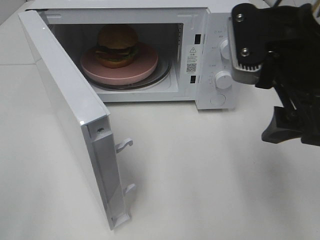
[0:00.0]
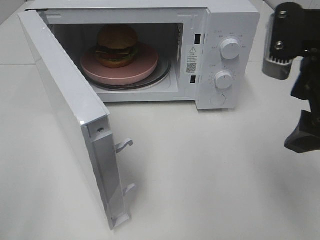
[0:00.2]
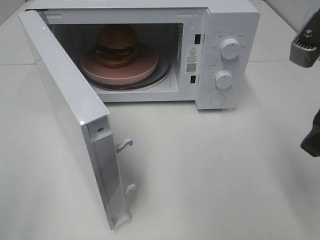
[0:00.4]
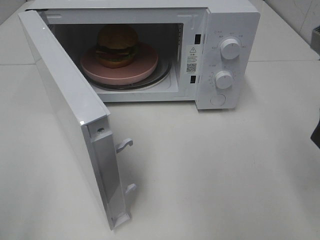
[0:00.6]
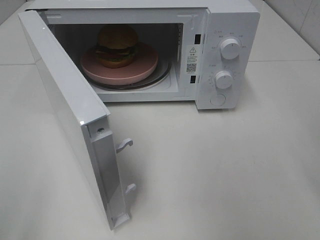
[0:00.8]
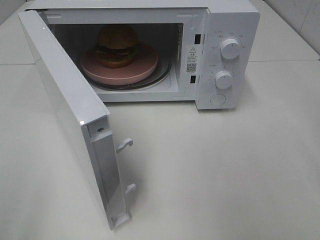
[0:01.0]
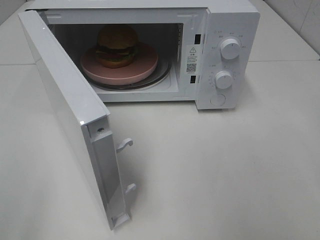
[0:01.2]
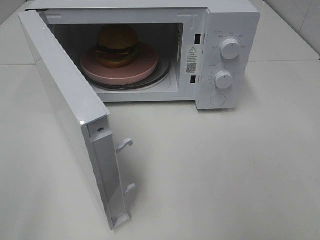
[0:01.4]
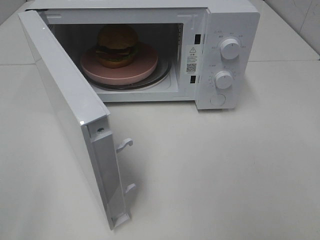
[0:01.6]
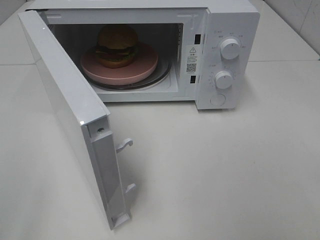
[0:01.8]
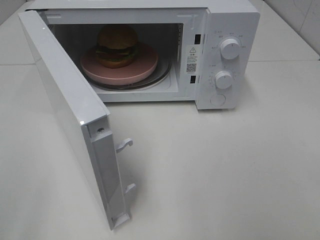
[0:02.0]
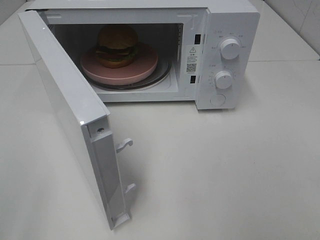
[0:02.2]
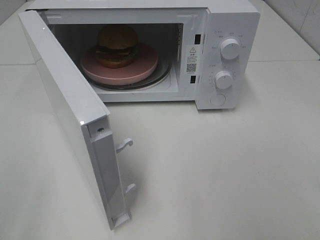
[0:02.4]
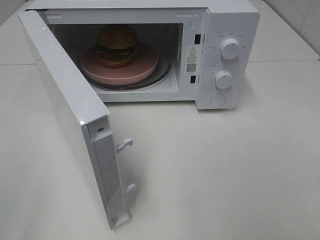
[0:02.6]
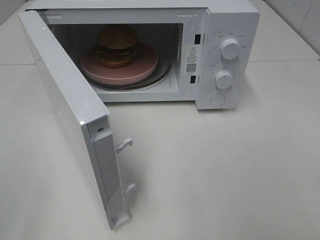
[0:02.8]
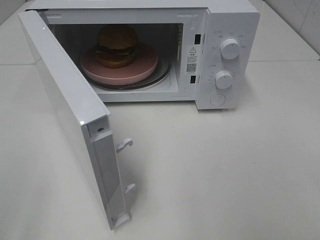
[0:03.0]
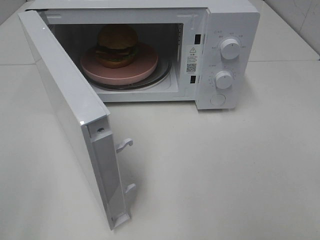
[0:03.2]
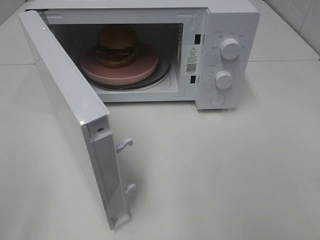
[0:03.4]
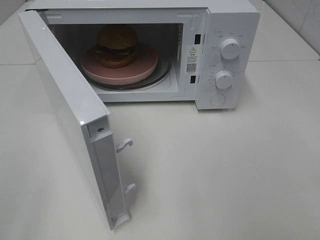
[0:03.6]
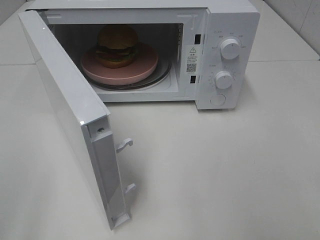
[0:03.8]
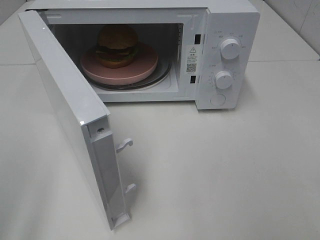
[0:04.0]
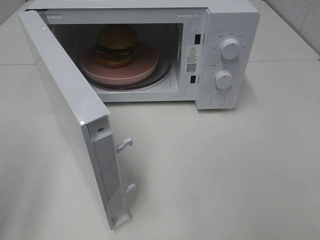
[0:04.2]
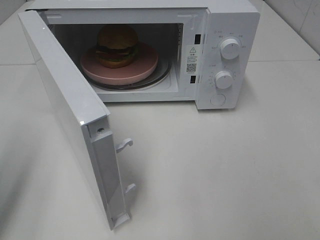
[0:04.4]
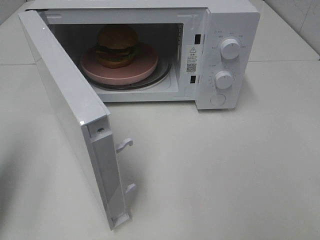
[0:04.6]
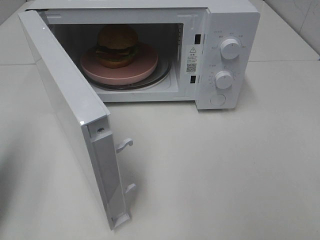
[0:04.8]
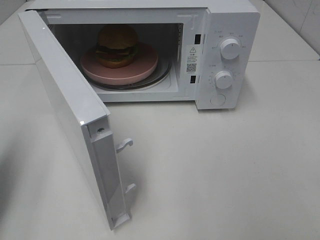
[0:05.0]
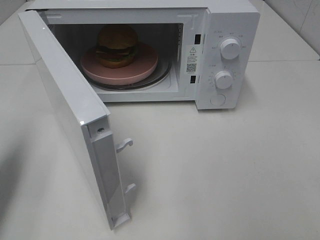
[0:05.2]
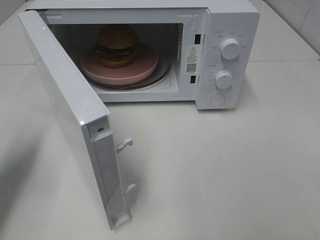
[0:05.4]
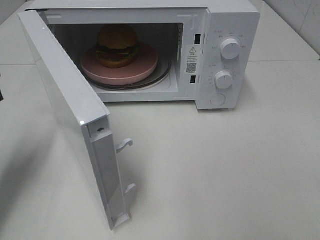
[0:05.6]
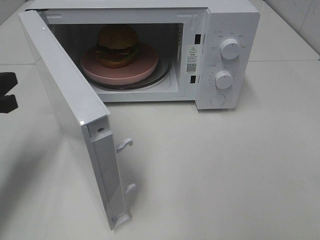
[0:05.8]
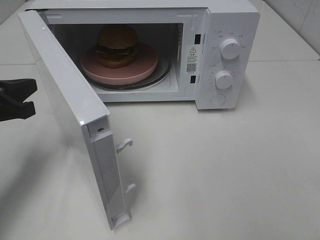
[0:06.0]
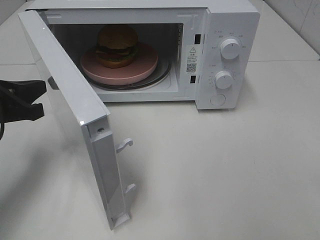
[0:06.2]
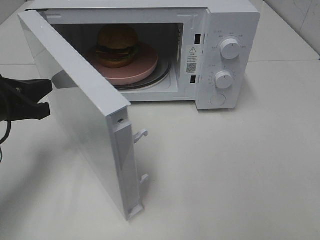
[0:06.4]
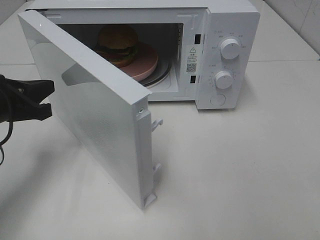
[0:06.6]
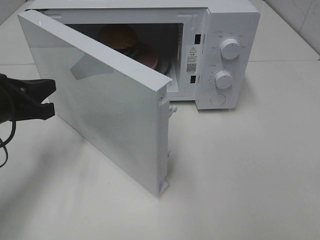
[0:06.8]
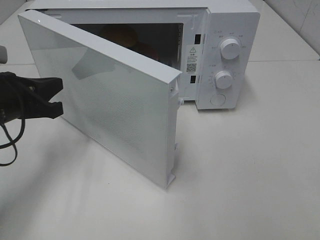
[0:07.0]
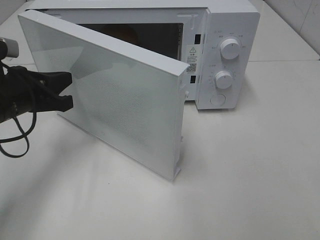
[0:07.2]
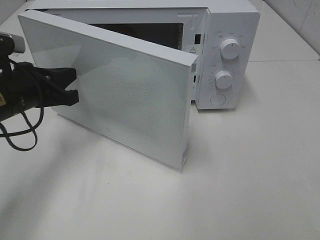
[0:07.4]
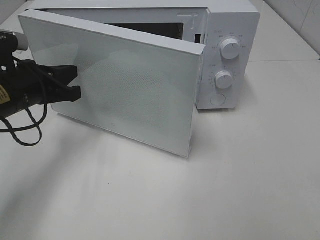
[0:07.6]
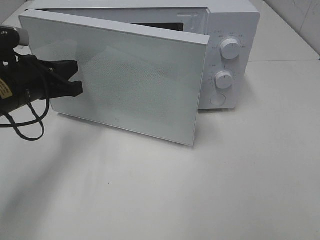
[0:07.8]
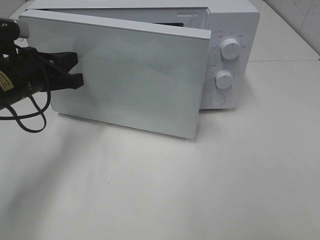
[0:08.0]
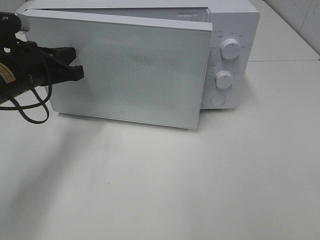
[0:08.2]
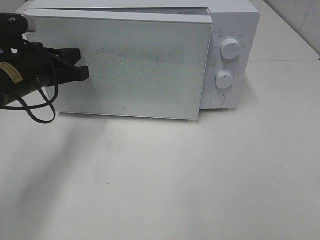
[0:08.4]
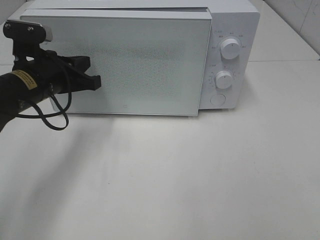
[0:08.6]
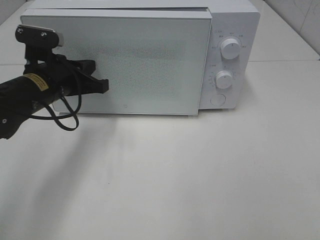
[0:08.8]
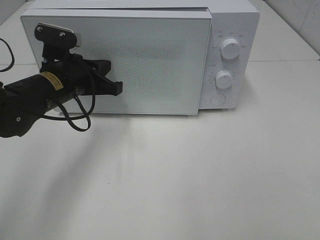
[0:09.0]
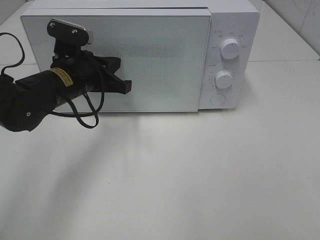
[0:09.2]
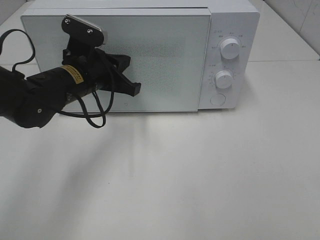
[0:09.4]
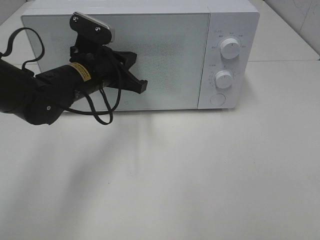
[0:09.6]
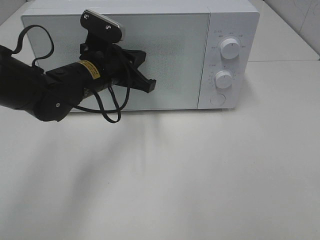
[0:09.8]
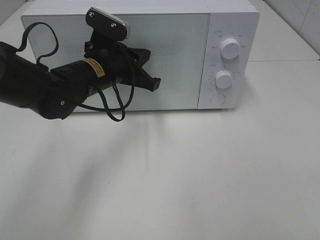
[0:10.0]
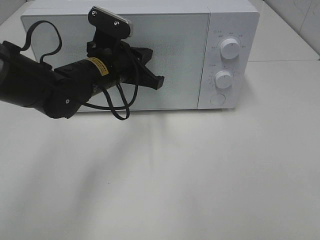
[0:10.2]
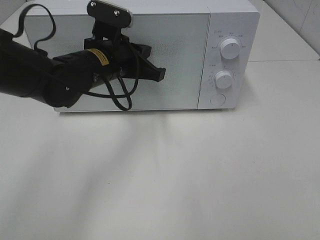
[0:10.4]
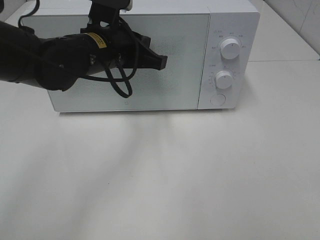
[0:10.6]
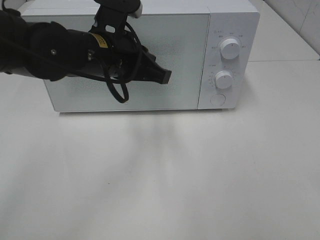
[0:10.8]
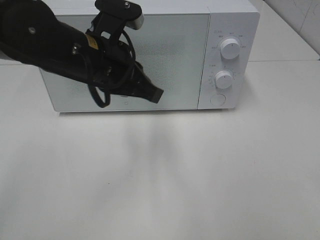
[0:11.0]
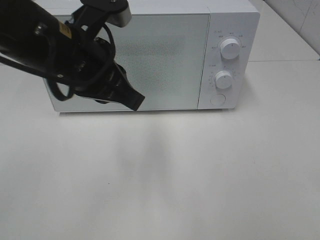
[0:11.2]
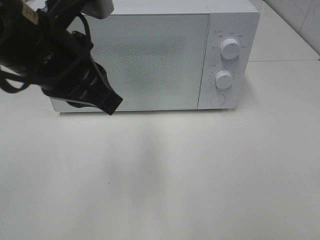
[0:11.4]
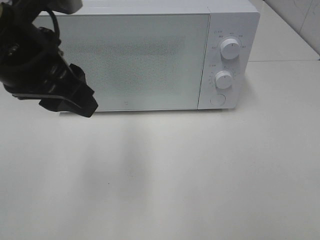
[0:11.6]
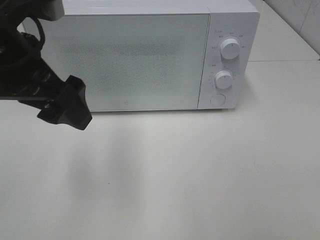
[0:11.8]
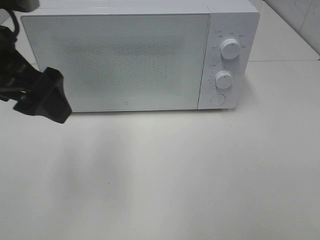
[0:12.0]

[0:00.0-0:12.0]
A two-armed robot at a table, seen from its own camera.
Task of the whole recording: Heat the burger.
Step, 0:00.0 to 0:09.6: Left hand: close the microwave door.
0:00.0 to 0:01.6: The right gripper is displaced to the right and backward by approximately 20 cm.
0:03.0 to 0:04.4: The left gripper shifts some 15 cm forward, and closes up.
0:04.4 to 0:06.0: The left gripper goes approximately 20 cm downward, forward and to the right, and closes.
0:06.0 to 0:07.6: The left gripper is displaced to the right by about 5 cm.
0:07.6 to 0:09.0: The left gripper heads to the right, covering about 5 cm.
0:09.0 to 0:10.4: The left gripper travels to the right by roughly 5 cm.
0:10.4 to 0:12.0: The left gripper travels backward, upward and to the left by some 20 cm, and opens up.

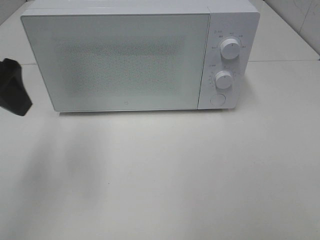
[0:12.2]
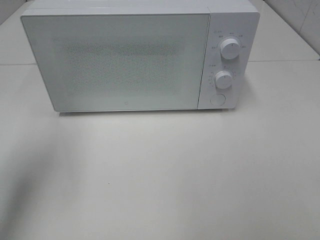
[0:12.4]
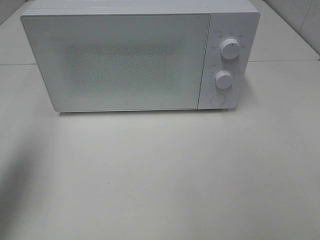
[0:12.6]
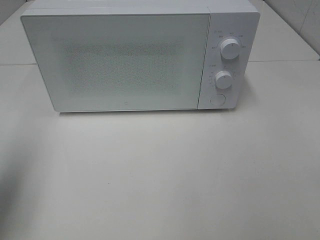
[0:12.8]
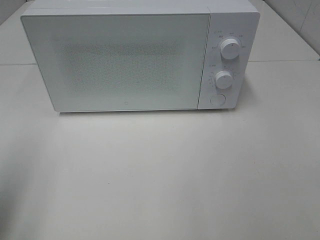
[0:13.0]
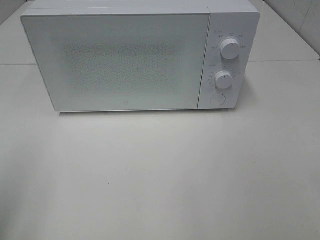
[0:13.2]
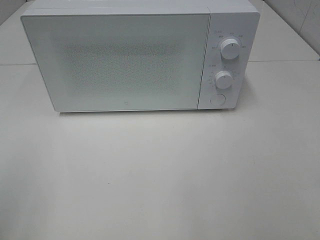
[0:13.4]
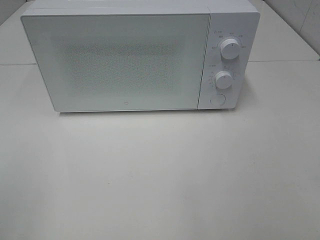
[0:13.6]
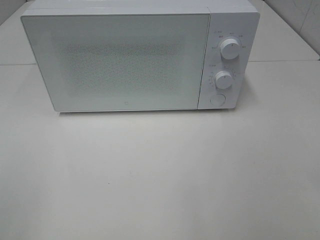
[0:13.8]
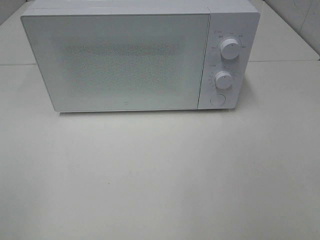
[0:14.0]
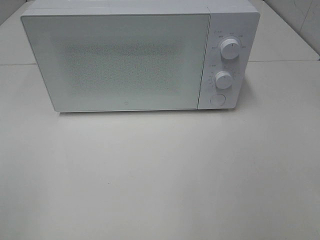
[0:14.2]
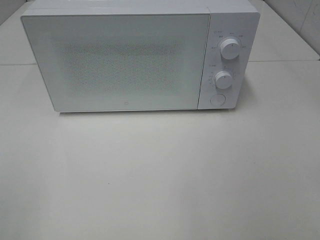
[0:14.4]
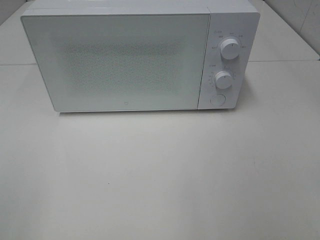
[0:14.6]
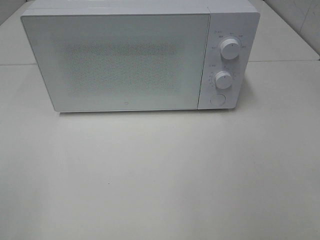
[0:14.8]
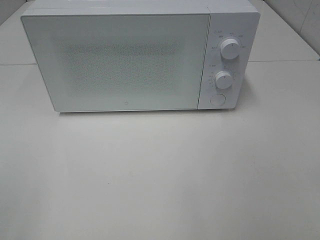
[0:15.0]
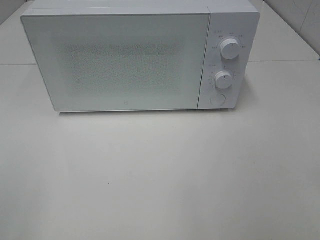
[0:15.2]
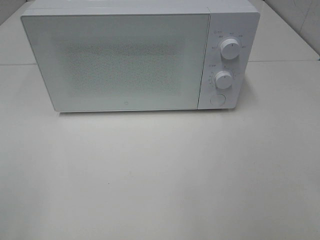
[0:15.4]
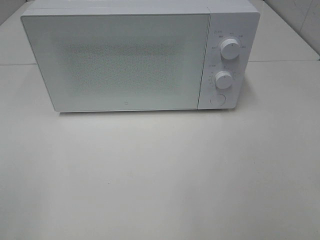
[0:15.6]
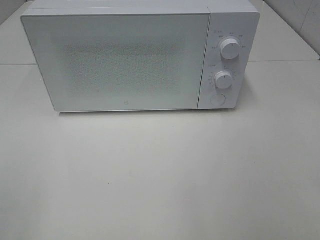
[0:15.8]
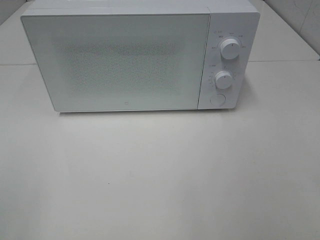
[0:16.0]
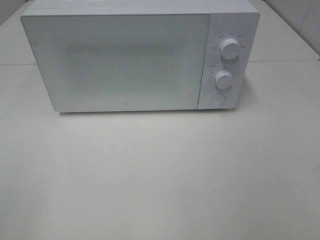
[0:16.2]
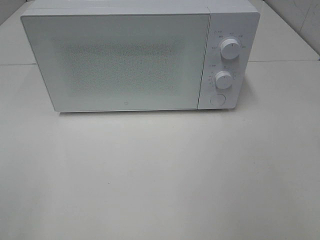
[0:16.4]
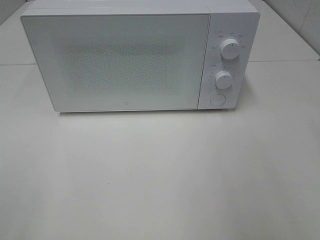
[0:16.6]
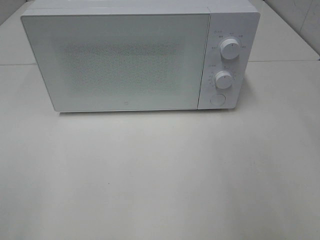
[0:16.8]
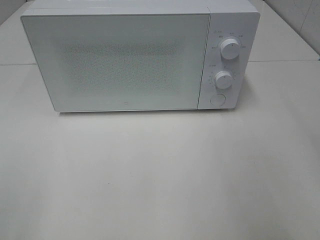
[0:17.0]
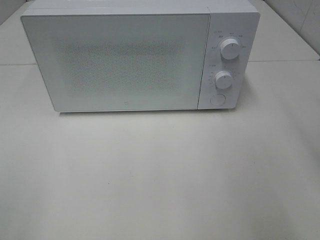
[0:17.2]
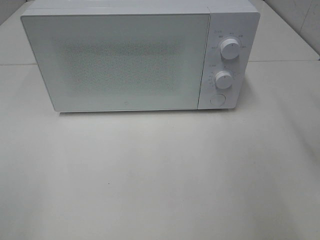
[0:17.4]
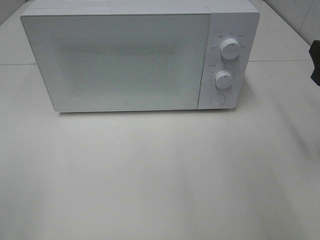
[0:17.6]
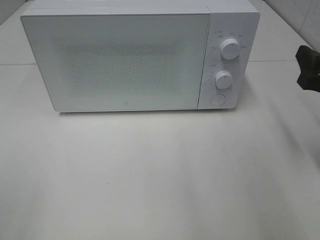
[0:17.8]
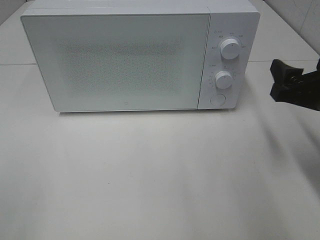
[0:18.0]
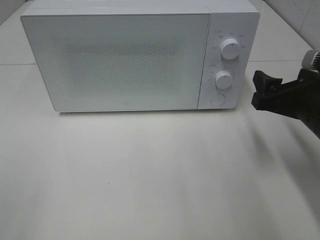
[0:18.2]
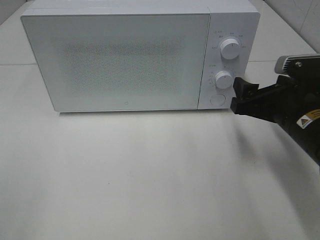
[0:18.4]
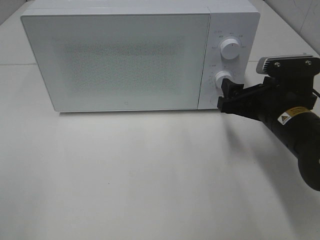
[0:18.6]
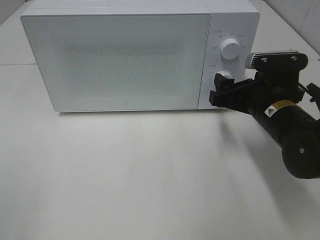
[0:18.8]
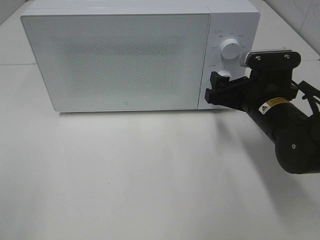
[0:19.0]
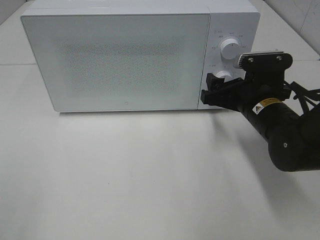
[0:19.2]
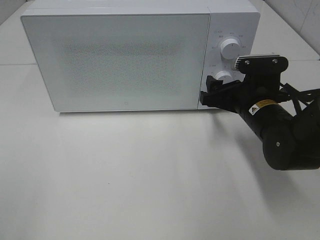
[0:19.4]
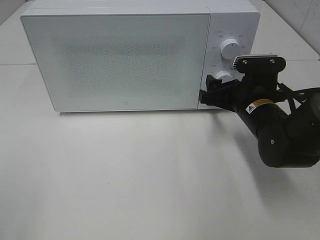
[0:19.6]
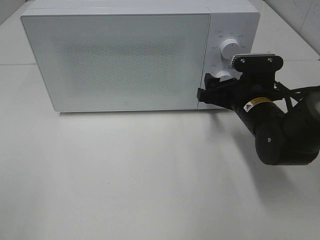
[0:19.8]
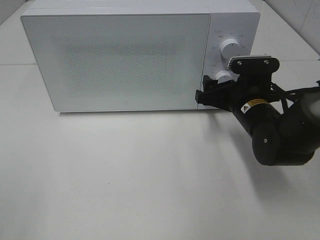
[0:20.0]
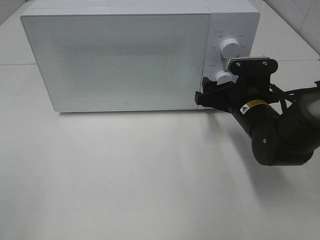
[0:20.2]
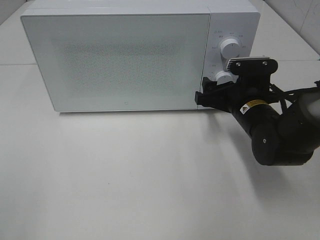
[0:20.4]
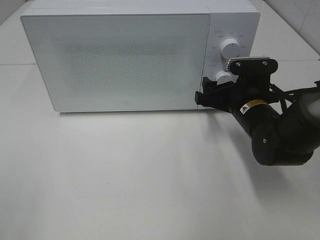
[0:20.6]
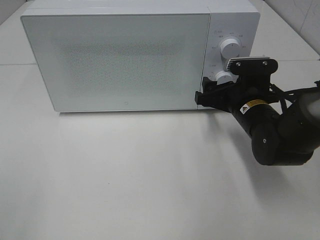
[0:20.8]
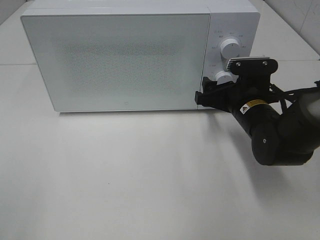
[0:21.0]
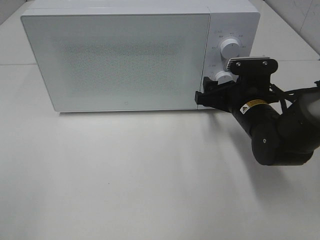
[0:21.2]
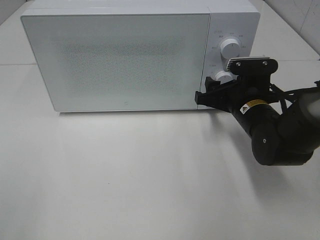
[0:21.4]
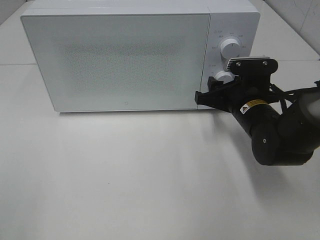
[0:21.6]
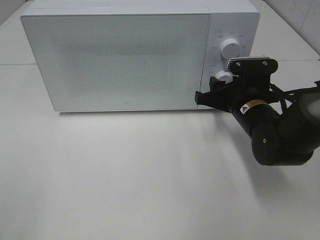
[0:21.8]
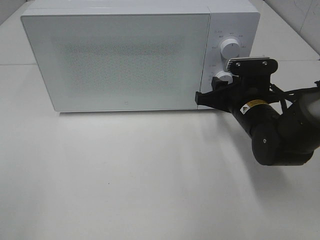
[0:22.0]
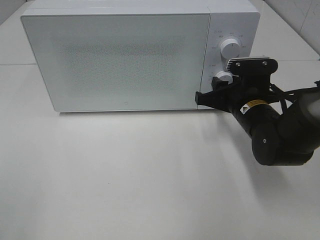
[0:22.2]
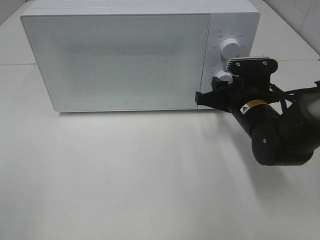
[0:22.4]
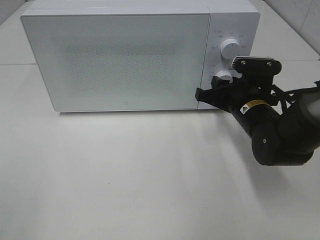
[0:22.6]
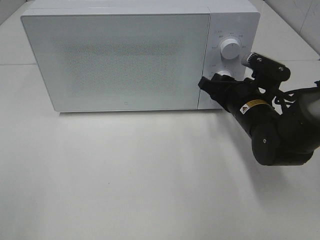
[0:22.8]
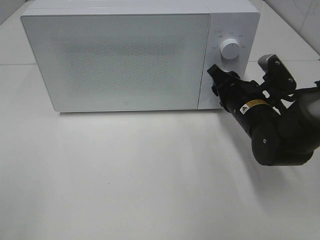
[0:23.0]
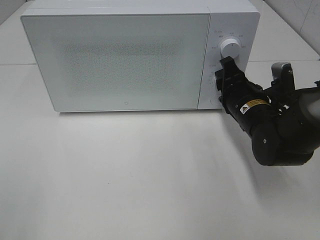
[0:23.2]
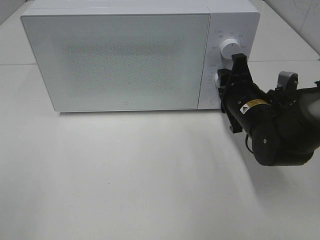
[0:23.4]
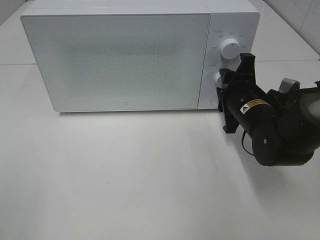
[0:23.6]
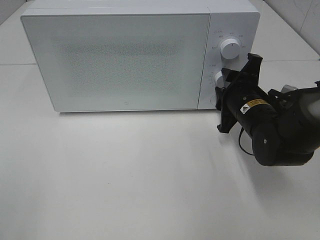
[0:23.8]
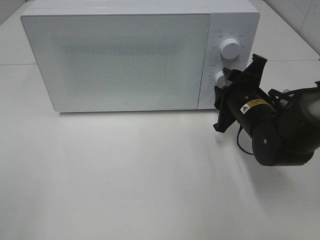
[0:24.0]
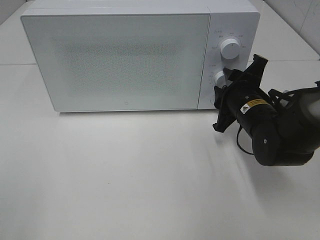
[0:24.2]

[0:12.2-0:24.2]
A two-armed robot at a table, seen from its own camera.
Task of the whole recording: Heat the burger.
0:12.2 to 0:13.8: The left gripper heads backward, covering roughly 25 cm.
0:13.8 to 0:15.2: Both grippers stay about where they are.
0:16.6 to 0:18.2: The right gripper moves downward, forward and to the left, approximately 20 cm.
0:18.2 to 0:19.8: The right gripper is displaced forward, to the left and downward by approximately 10 cm.
0:19.8 to 0:21.2: Both grippers stay put.
0:21.2 to 0:22.6: The right gripper closes.
